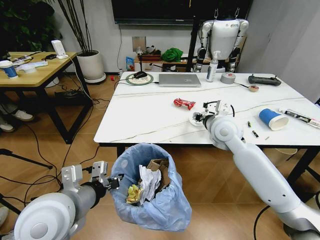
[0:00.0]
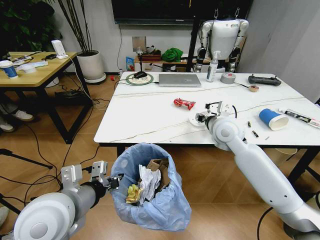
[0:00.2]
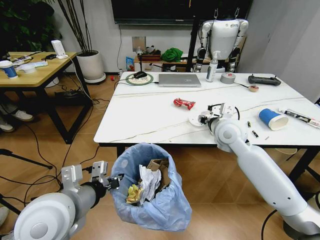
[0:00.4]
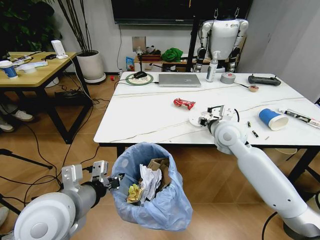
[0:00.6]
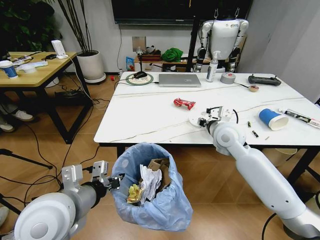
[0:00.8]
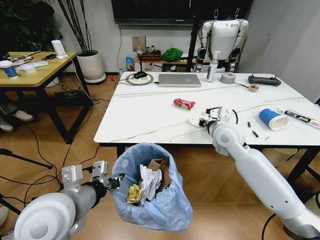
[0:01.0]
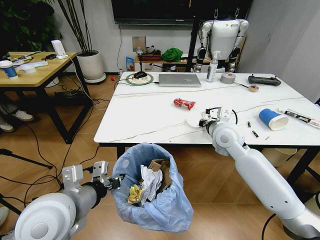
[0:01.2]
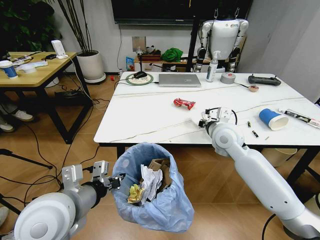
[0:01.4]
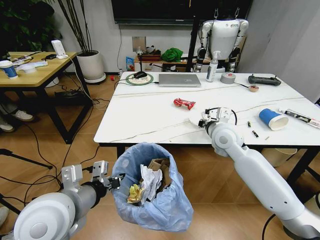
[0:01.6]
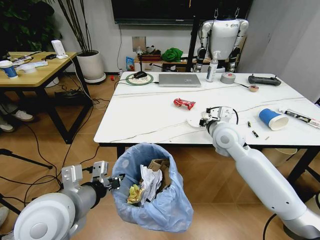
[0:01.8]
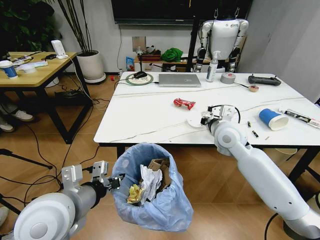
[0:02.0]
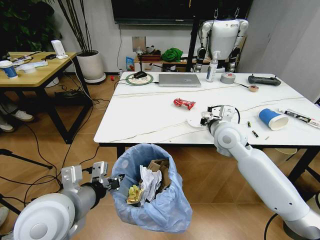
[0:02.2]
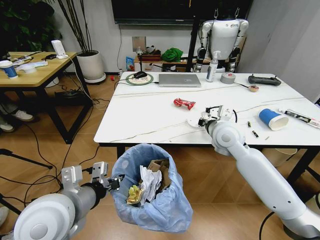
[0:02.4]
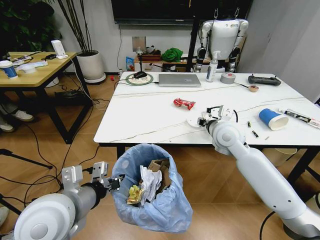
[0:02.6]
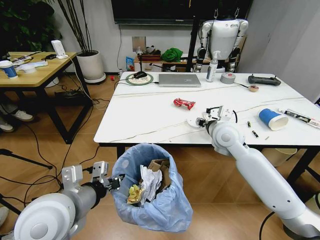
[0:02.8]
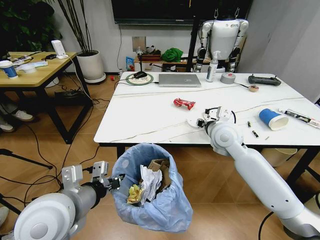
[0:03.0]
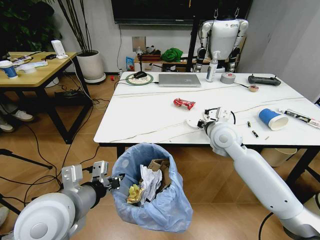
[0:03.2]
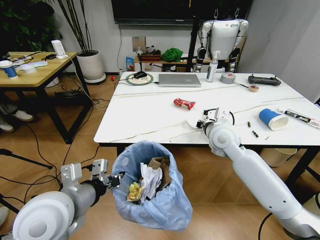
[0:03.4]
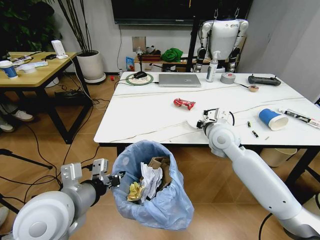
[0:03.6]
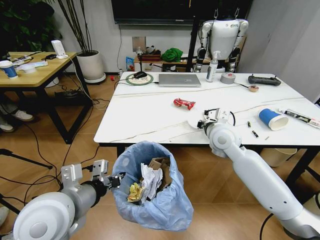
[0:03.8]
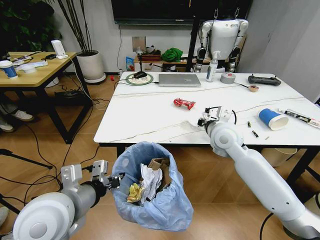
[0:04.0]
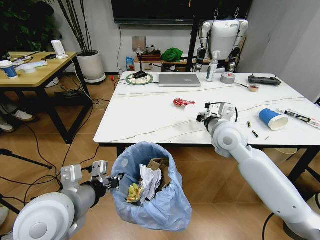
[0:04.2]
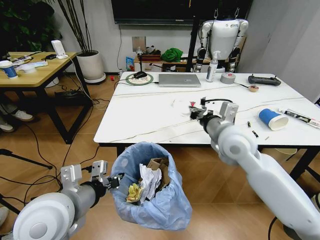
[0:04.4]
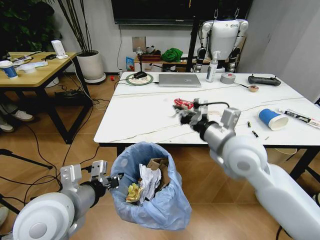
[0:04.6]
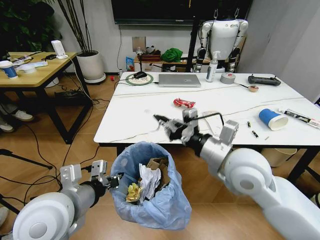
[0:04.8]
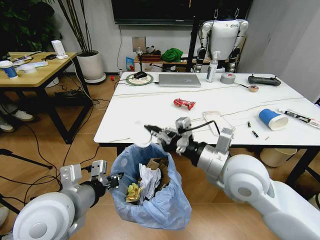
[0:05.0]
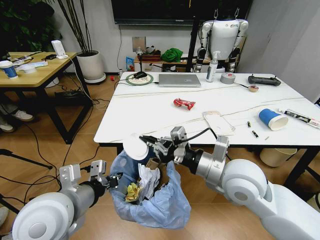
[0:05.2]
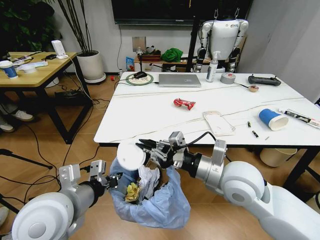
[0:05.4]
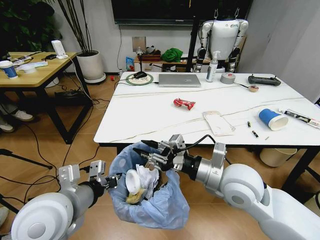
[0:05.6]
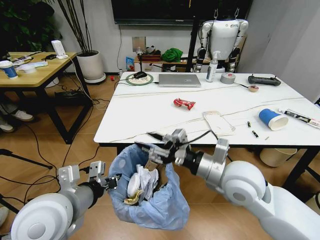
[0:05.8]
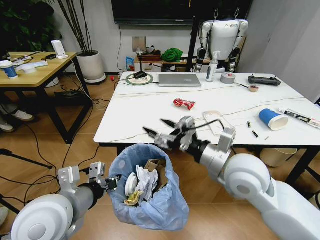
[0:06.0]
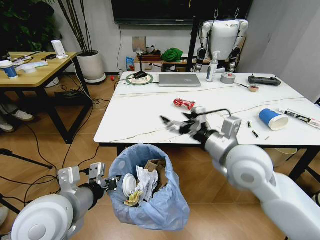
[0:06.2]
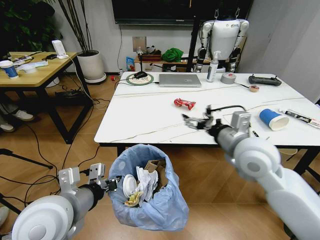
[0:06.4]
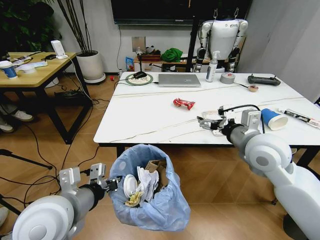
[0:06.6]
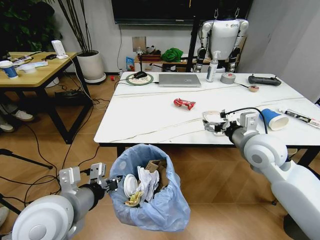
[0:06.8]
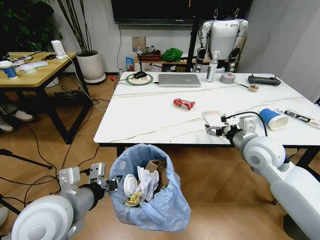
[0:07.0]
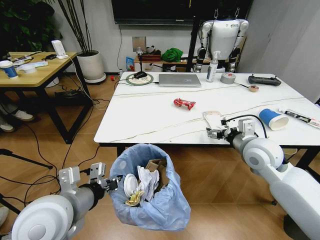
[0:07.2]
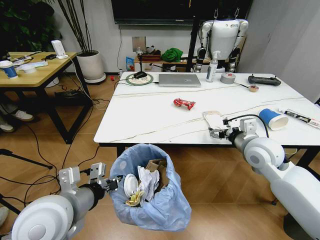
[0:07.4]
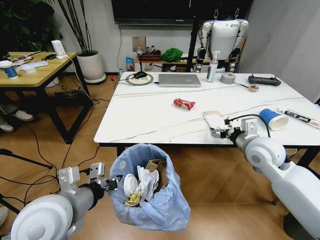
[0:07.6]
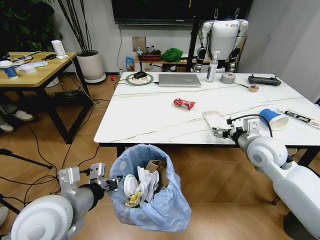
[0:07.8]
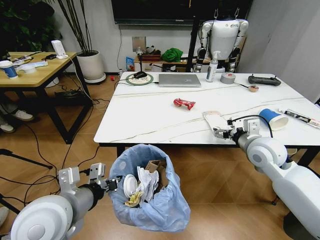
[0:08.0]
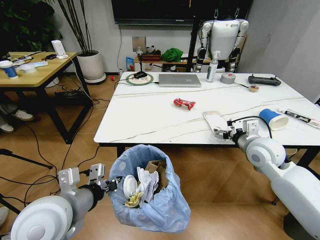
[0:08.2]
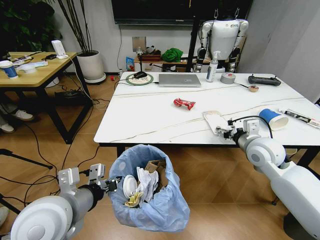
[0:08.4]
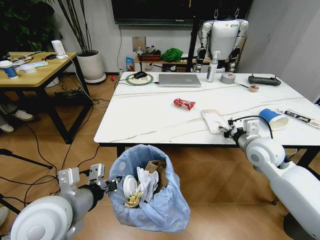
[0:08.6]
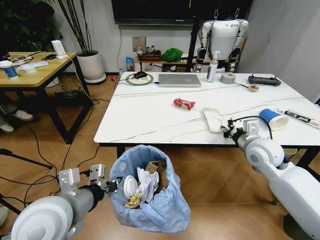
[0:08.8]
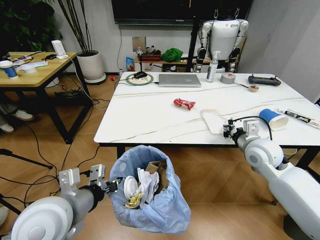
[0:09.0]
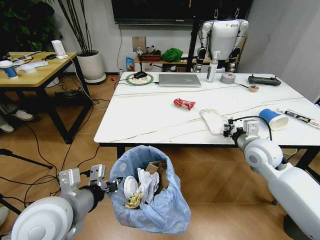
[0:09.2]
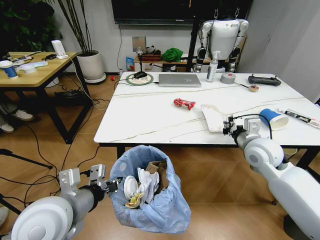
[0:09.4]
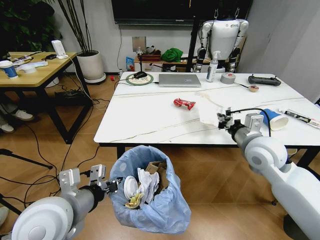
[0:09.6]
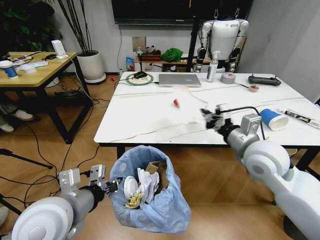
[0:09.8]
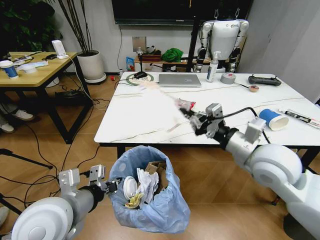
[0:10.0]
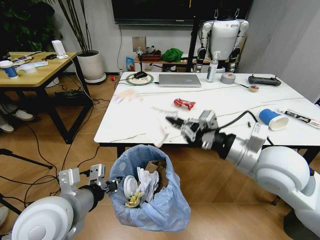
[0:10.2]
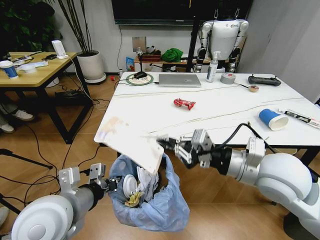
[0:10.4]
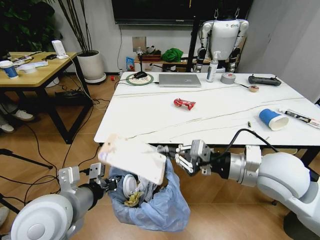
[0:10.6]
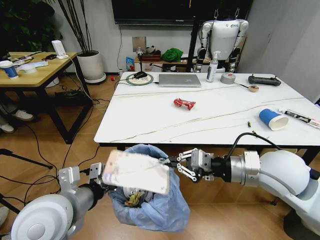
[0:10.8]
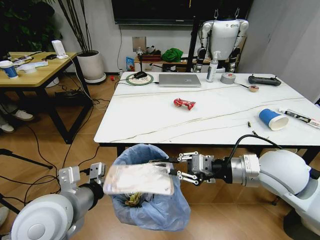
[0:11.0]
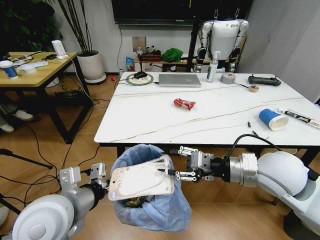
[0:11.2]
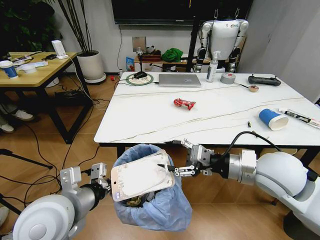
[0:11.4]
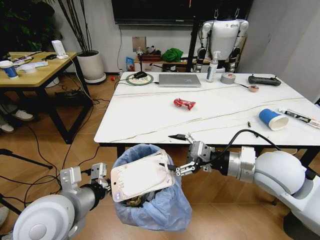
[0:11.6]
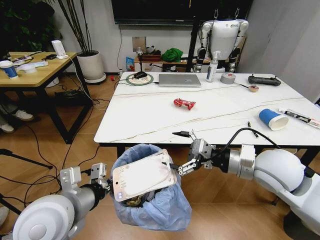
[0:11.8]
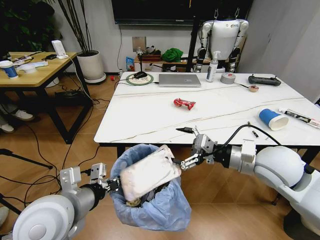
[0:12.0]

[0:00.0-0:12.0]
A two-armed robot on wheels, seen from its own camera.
Task of the whole recording: Pick up the trash bin and place the trash from the table into it.
0:00.0 to 0:01.6: The right gripper closes up.
0:01.6 to 0:03.0: The right gripper opens up.
0:03.0 to 0:04.4: The right gripper shifts some 5 cm backward, and closes its fingers.
0:04.4 to 0:06.0: The right gripper shifts approximately 10 cm backward, and opens its fingers.
0:06.0 to 0:07.6: The right gripper moves to the right and forward, some 15 cm.
0:07.6 to 0:09.0: The right gripper closes.
0:09.0 to 0:10.4: The right gripper shifts roughly 15 cm backward, upward and to the left.
0:10.4 to 0:12.0: The right gripper ends up about 5 cm from where it was, and opens its fingers.

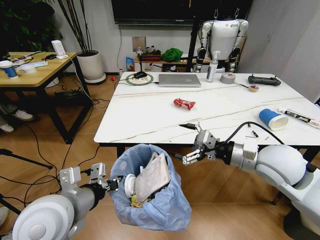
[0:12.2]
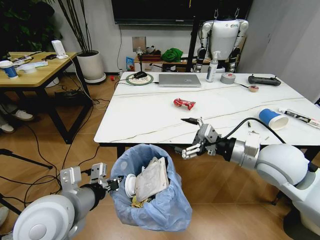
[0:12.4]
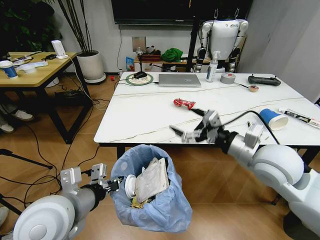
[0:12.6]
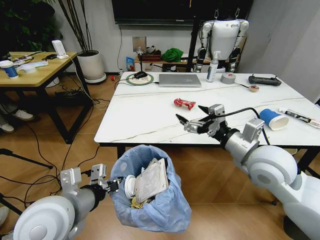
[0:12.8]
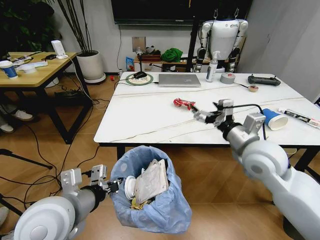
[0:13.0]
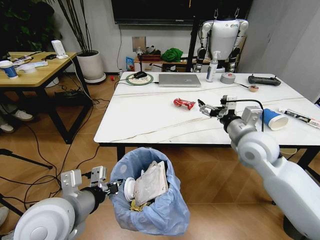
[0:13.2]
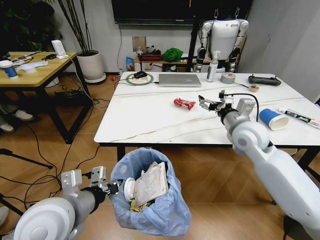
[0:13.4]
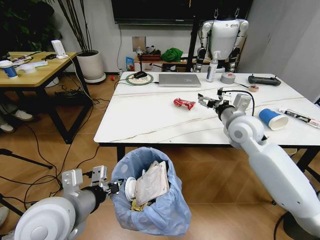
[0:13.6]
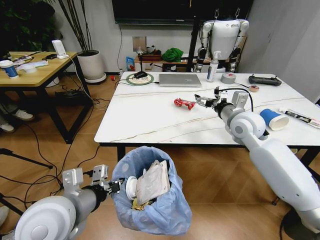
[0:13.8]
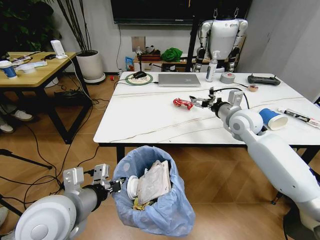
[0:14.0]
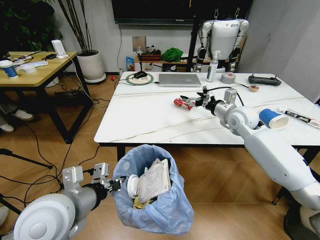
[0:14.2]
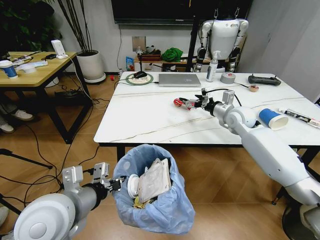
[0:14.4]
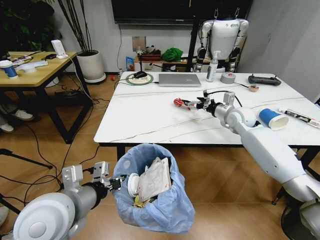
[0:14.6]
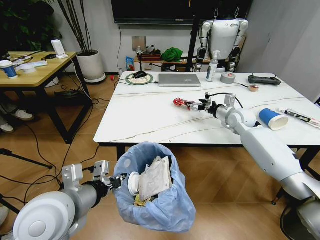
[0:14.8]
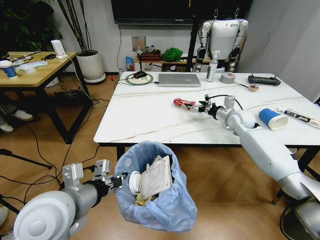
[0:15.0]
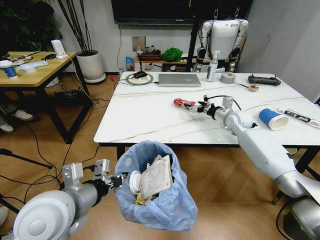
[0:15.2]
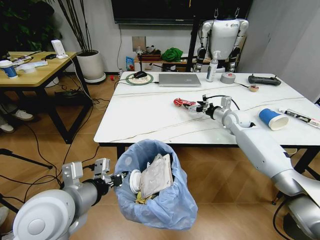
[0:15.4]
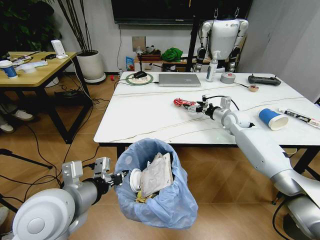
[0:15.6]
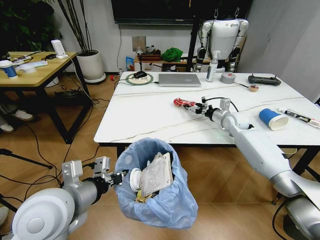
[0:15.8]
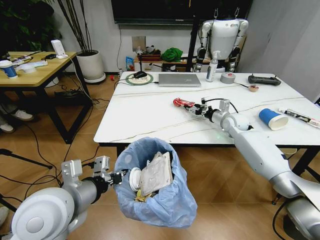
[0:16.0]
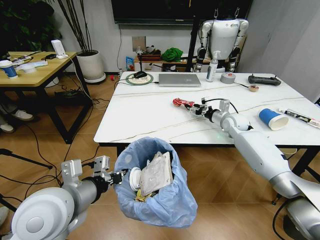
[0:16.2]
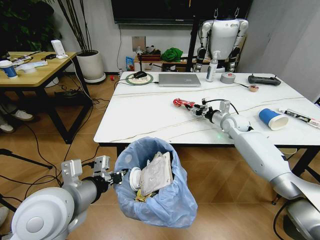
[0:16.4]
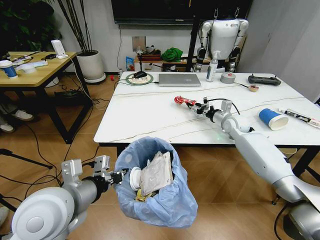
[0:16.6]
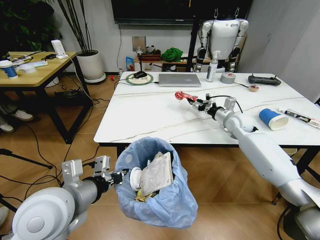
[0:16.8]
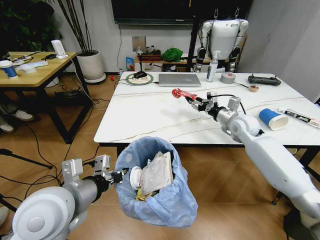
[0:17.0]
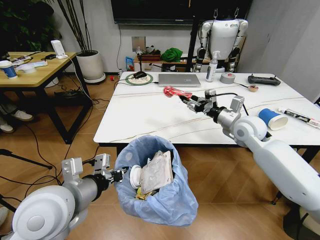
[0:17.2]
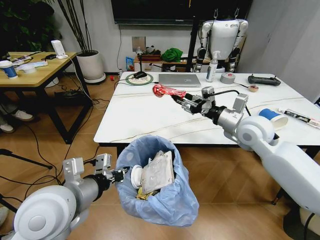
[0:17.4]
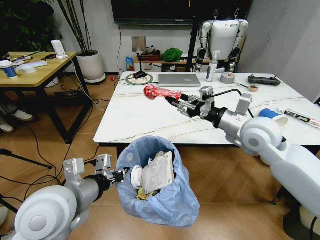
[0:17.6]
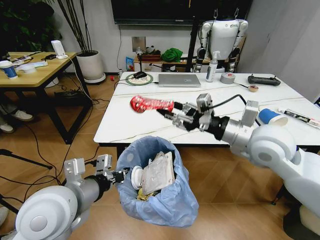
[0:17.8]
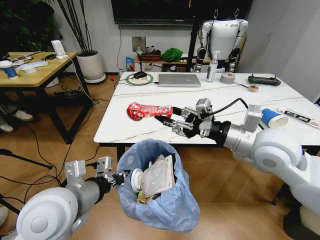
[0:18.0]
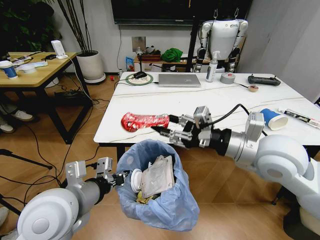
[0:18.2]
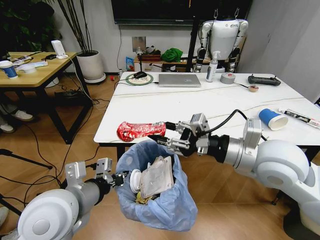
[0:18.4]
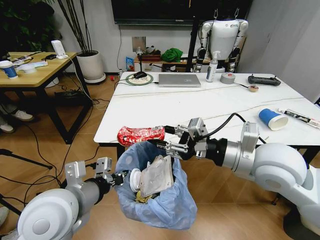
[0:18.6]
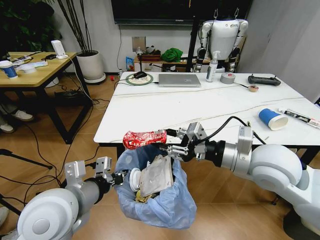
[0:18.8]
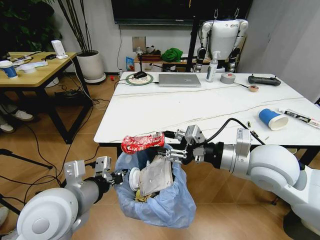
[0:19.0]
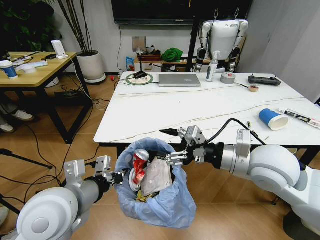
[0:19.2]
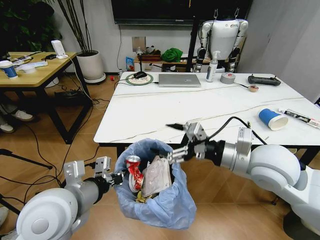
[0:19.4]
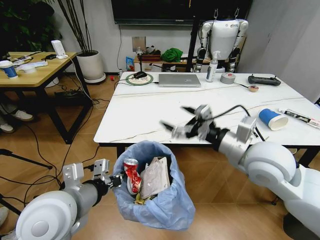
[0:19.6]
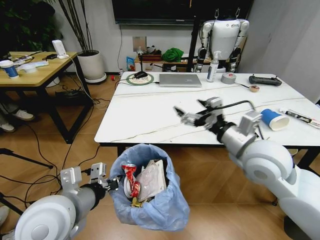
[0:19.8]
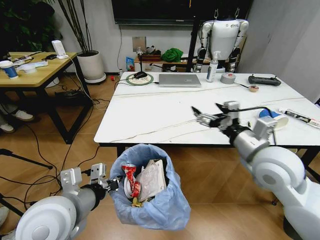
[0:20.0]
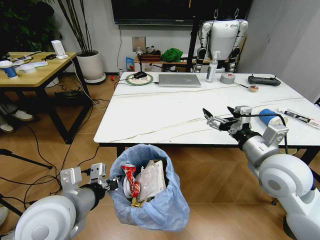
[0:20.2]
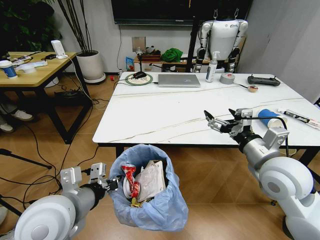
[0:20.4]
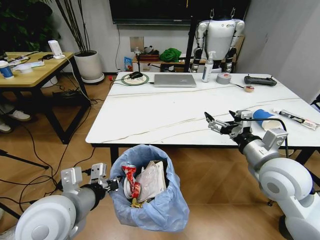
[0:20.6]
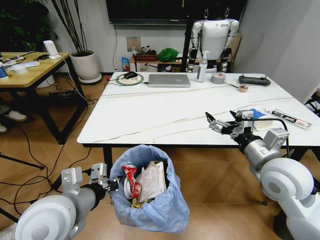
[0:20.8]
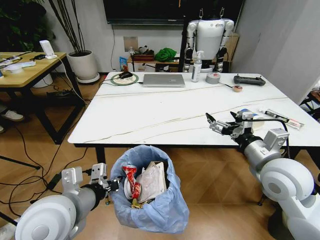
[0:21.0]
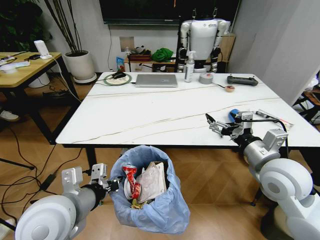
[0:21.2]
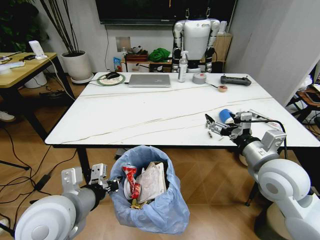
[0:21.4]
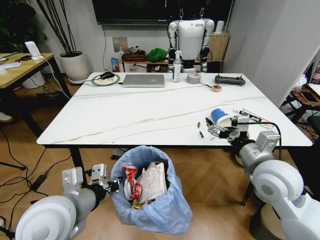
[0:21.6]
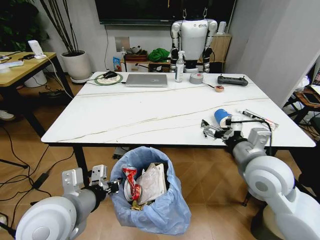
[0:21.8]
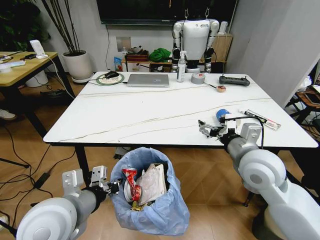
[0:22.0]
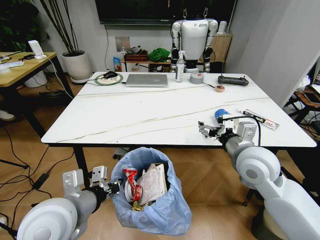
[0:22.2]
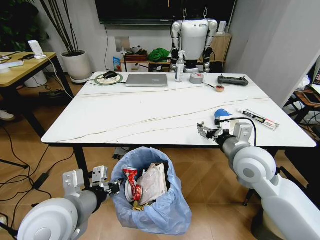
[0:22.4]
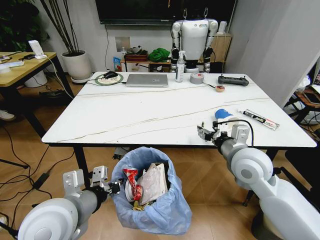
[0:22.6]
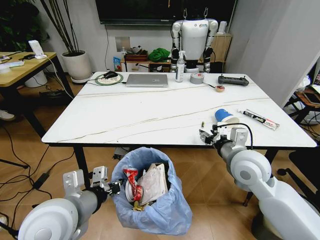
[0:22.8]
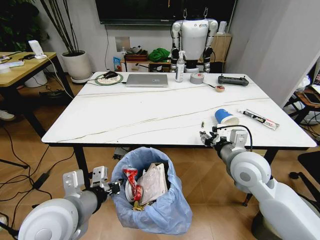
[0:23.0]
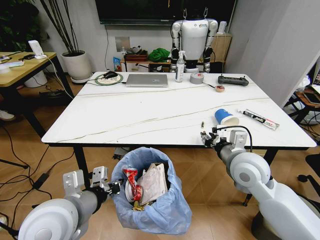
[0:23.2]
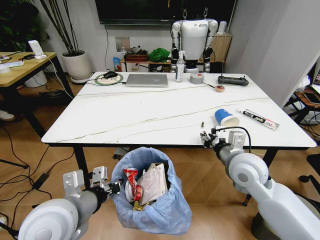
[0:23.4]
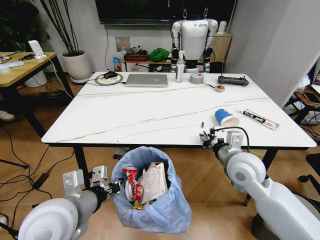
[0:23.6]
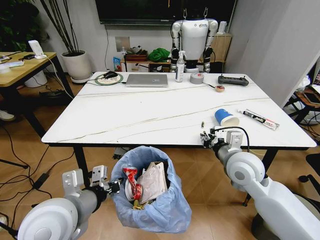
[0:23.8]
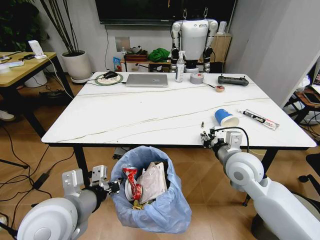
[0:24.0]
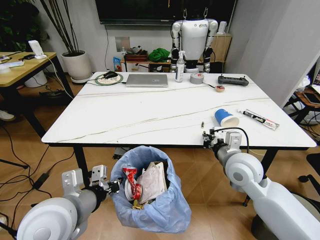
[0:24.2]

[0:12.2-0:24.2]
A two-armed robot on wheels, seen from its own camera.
Task of the whole recording: Pick up the trash bin and place the trash from the table into it.
0:12.2 to 0:13.8: The right gripper moves forward, approximately 15 cm.
0:13.8 to 0:15.2: The right gripper heads forward, downward and to the right, covering about 15 cm.
0:15.2 to 0:16.6: The right gripper closes.
0:16.6 to 0:18.2: The right gripper goes roughly 30 cm backward and upward.
0:18.2 to 0:19.8: The right gripper opens up.
0:19.8 to 0:21.2: The right gripper changes place by some 5 cm.
0:21.2 to 0:22.6: The right gripper goes some 5 cm to the left, and closes up.
0:22.6 to 0:24.2: The right gripper closes up.
